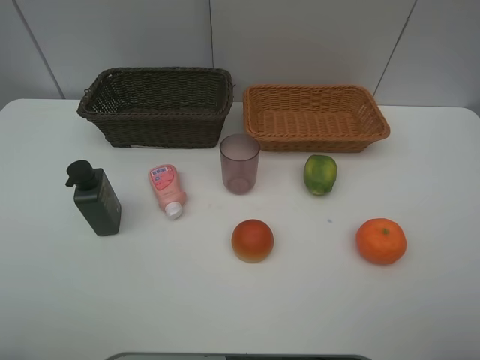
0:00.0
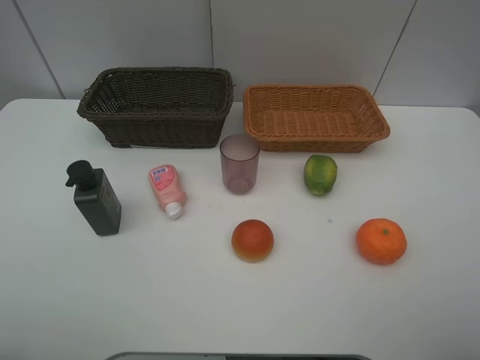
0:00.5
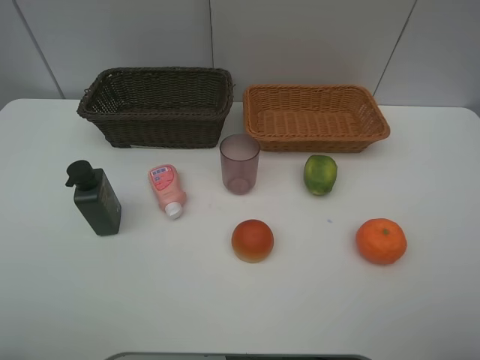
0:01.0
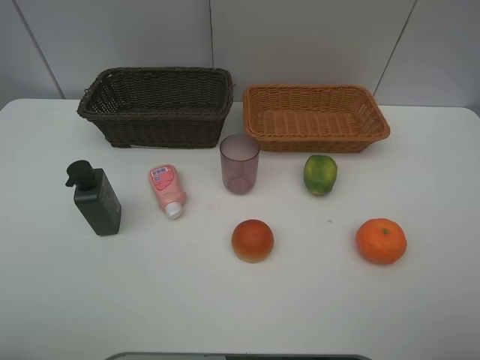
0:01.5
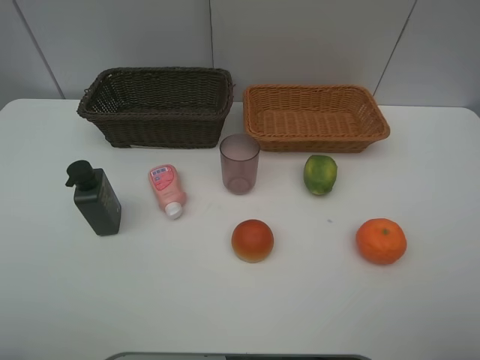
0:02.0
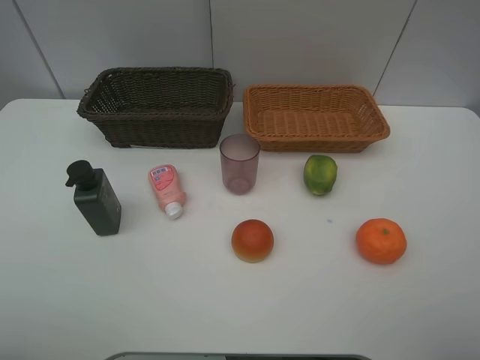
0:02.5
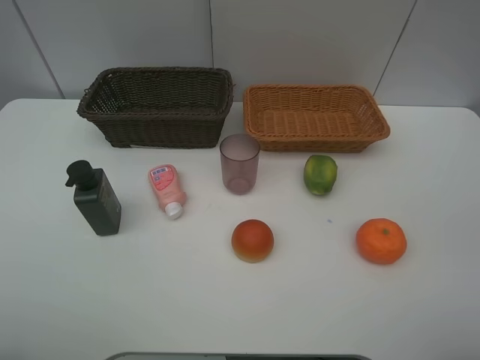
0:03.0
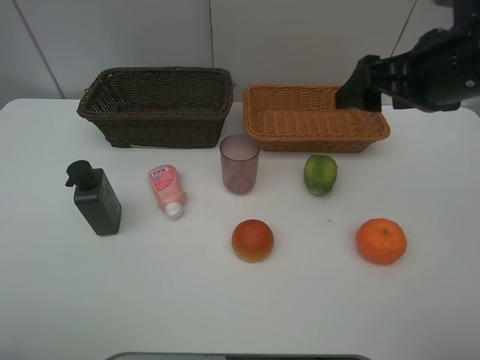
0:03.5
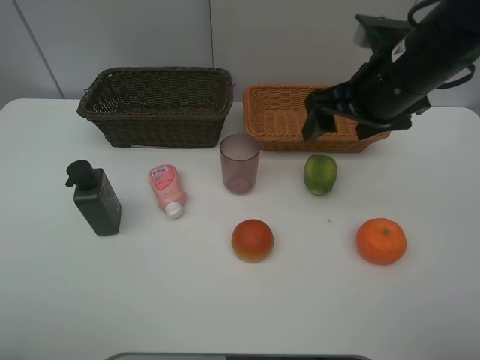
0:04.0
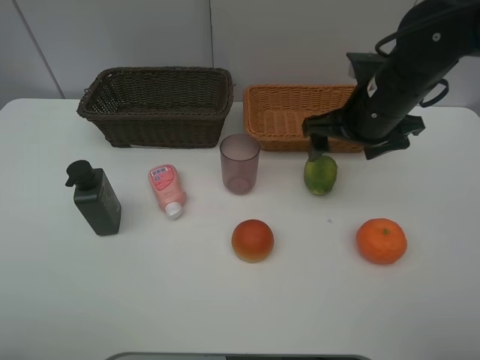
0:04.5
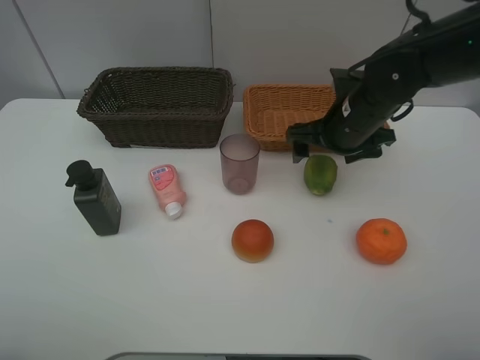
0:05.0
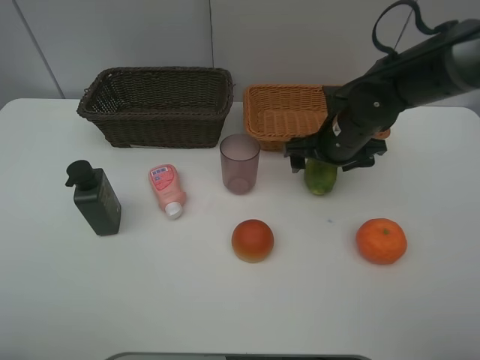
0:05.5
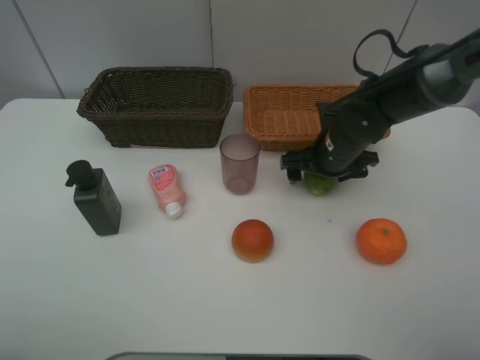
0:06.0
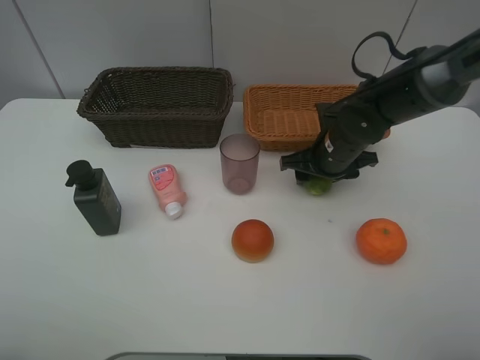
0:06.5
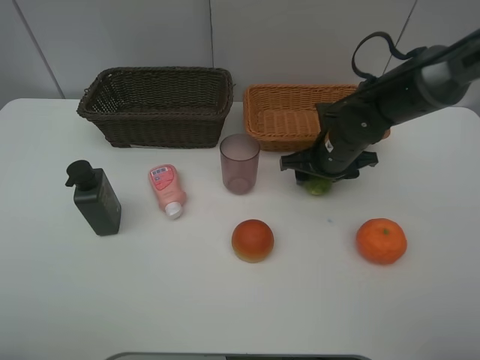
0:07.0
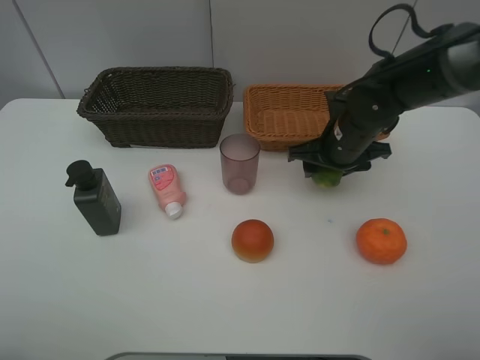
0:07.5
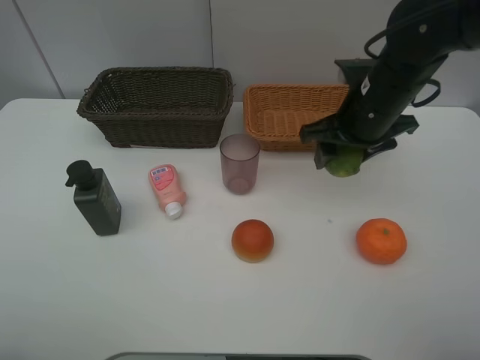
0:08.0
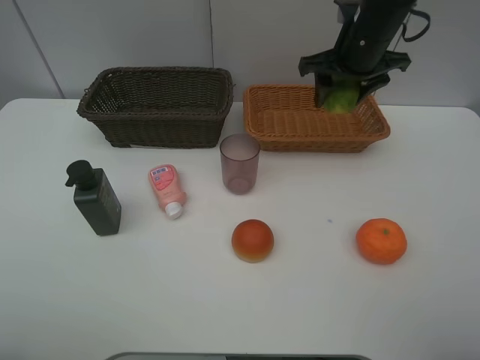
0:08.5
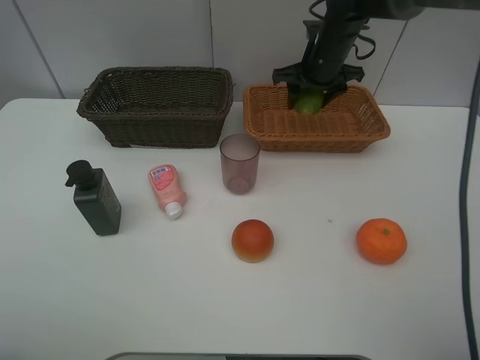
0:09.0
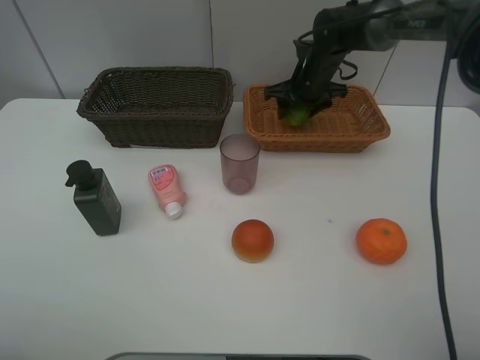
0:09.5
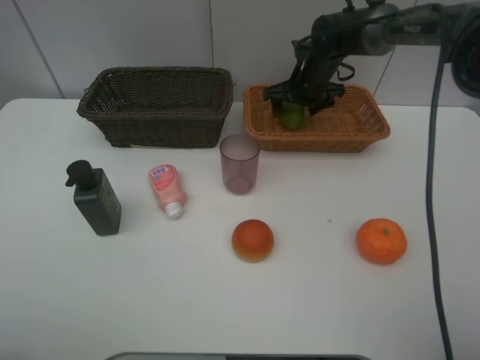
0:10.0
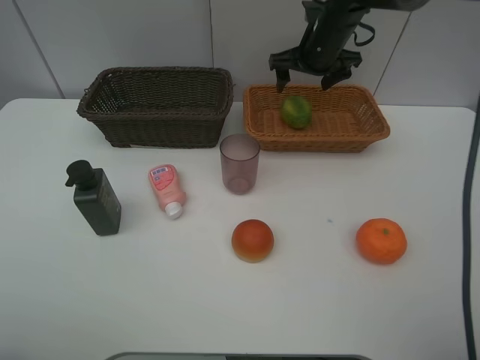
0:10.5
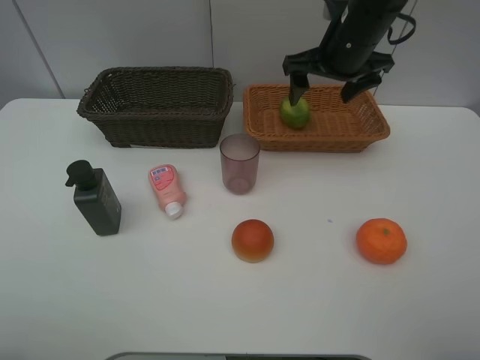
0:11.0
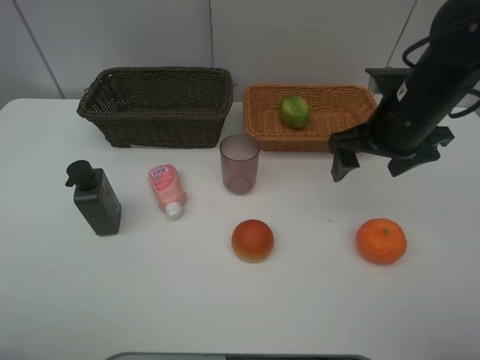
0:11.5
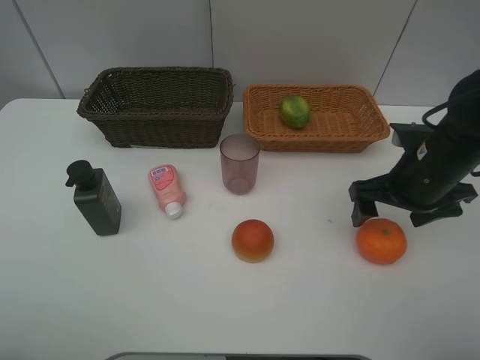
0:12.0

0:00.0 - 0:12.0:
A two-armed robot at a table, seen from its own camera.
Task of the whole recording: place multiple objects separately in different baskets.
0:00.0 - 0:02.0: Neither gripper changes place.
0:02.0 - 0:04.0: The right gripper is displaced forward and to the left by roughly 30 cm.
0:04.0 - 0:06.0: The right gripper is displaced downward and forward by approximately 15 cm.
0:06.0 - 0:08.0: The right gripper heads upward, covering some 10 cm, and closes.
0:08.0 - 0:10.0: The right gripper moves forward, approximately 20 cm, and opens up.
0:10.0 - 0:12.0: The right gripper moves backward, about 25 cm.

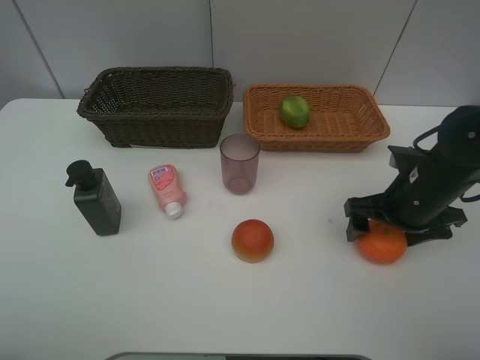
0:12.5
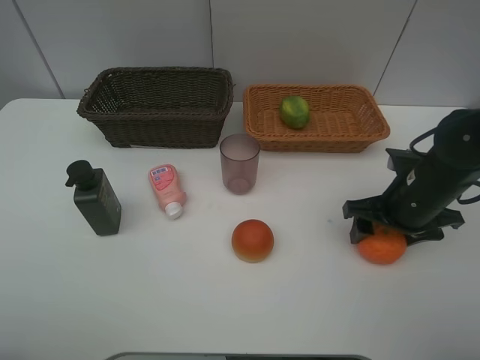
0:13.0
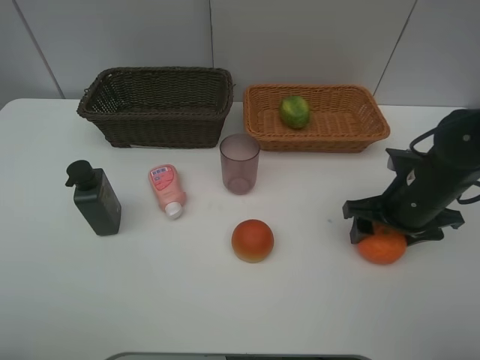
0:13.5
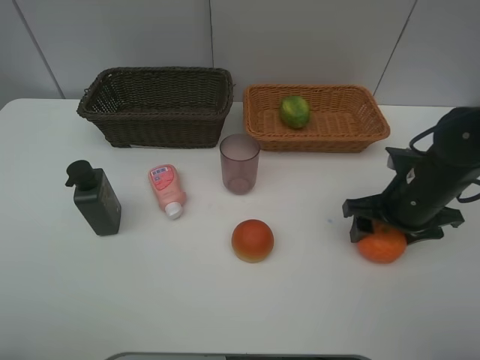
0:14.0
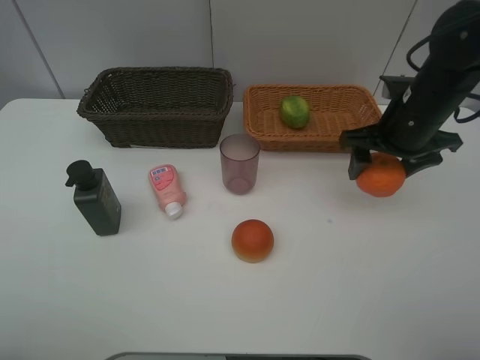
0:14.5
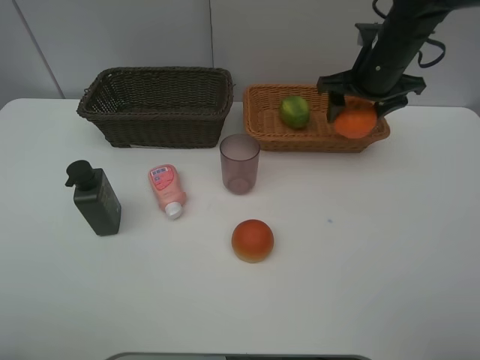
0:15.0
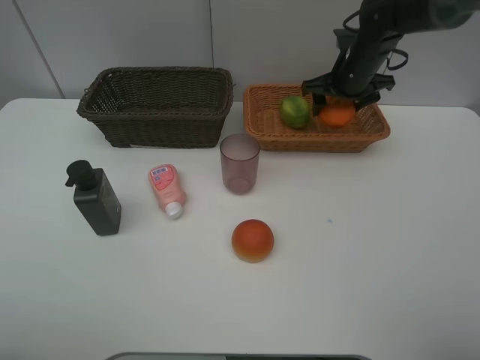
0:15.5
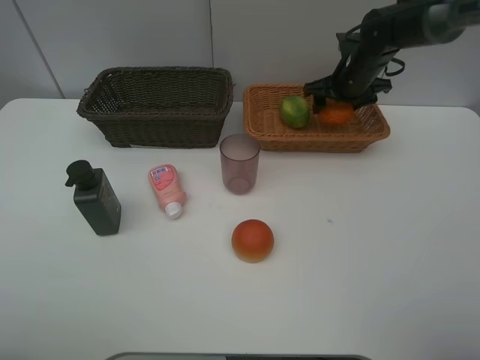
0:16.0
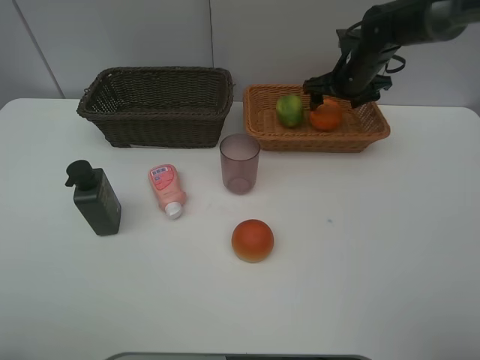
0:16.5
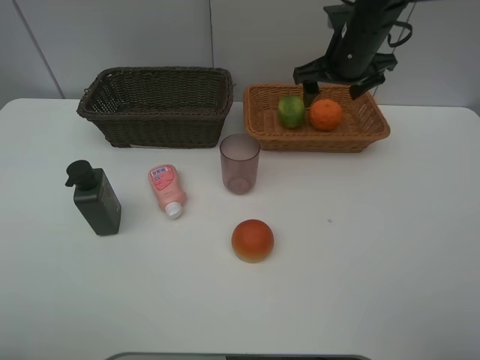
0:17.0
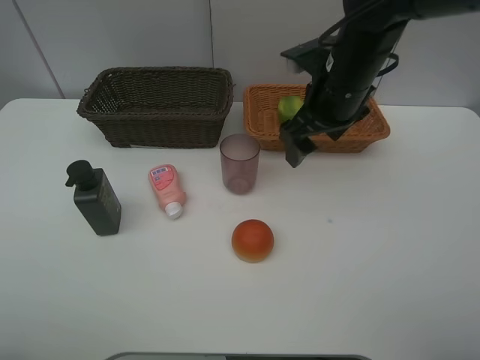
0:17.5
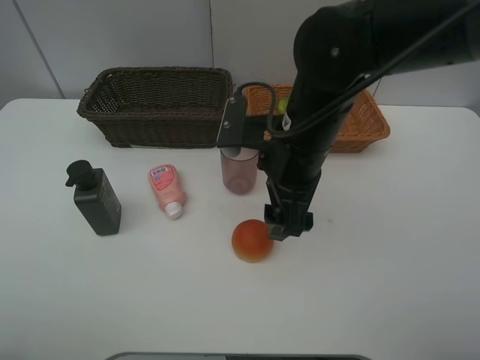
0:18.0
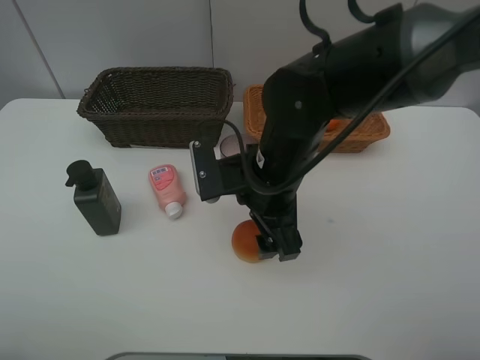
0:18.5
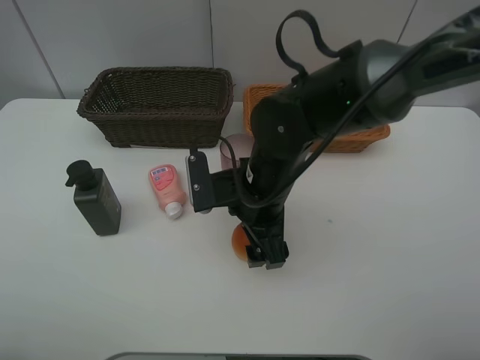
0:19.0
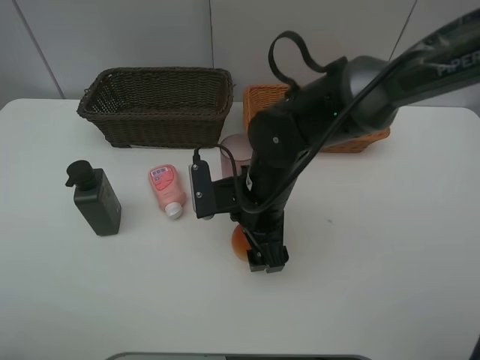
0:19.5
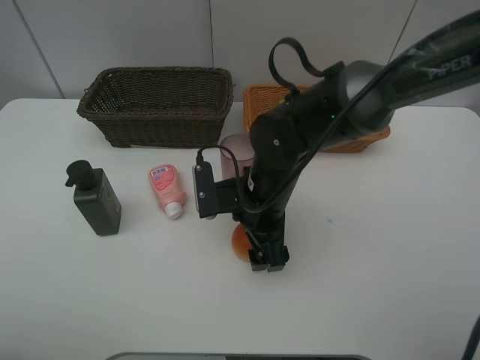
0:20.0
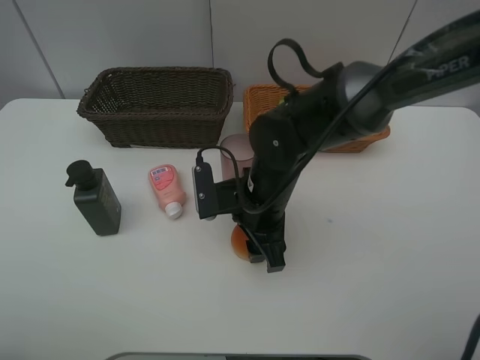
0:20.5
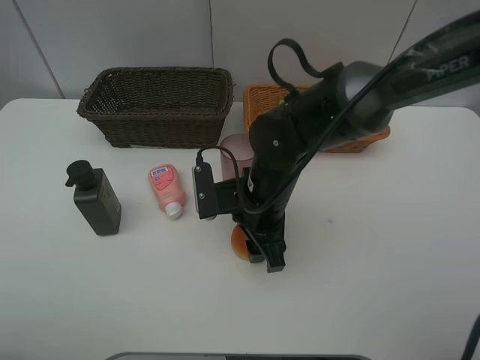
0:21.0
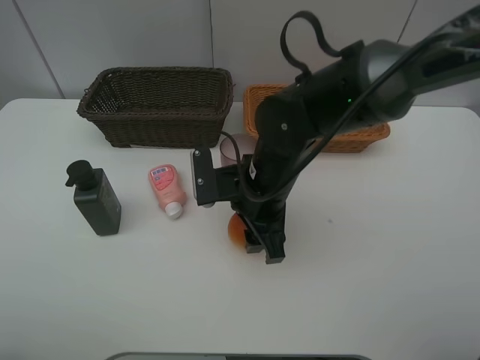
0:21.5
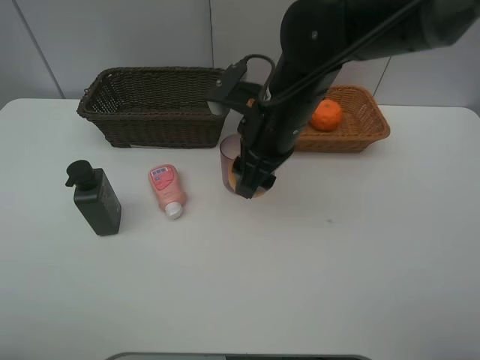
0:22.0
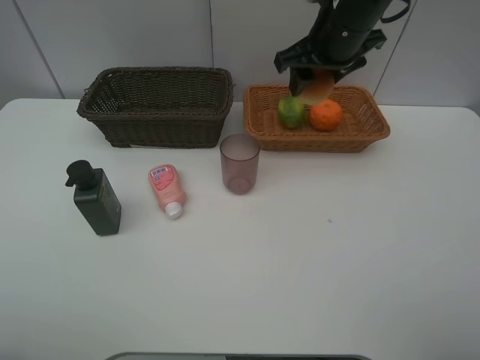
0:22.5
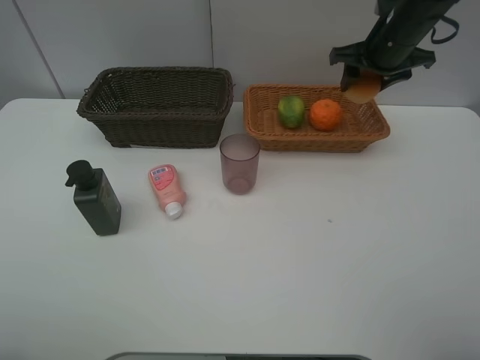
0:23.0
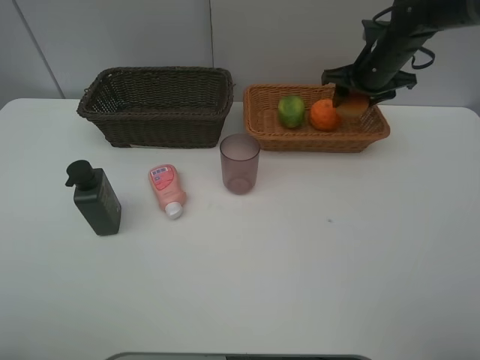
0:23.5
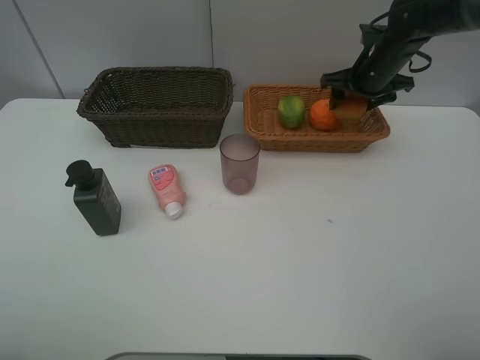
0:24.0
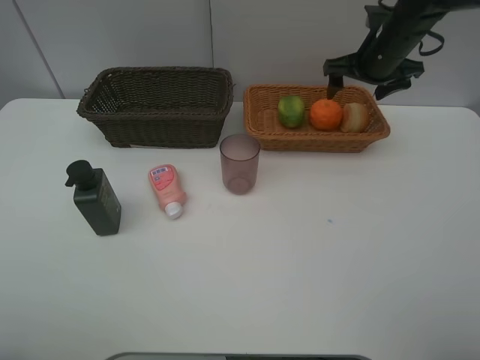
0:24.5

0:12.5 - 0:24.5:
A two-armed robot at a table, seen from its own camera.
Task of the whole recording: place multiple objects separately in different baskets.
0:12.5 - 0:14.5: The right gripper is displaced upward and forward by roughly 10 cm, and closes.
0:14.5 - 0:16.5: The right gripper goes about 15 cm forward, and opens.
0:16.5 - 0:18.5: The right gripper heads backward and to the left, covering approximately 30 cm.
0:18.5 - 0:20.5: The right gripper travels downward by approximately 5 cm, and closes up.
0:20.5 - 0:22.5: The right gripper is displaced upward, forward and to the right by approximately 25 cm.
0:22.5 - 0:24.5: The right gripper travels to the right and forward by about 10 cm, and opens up.

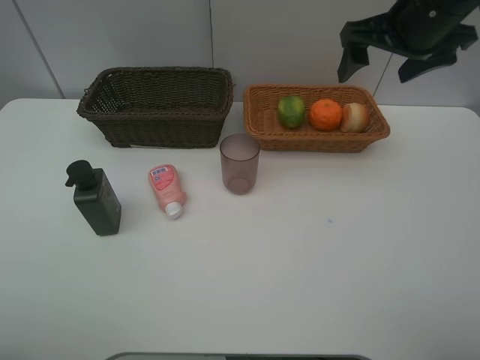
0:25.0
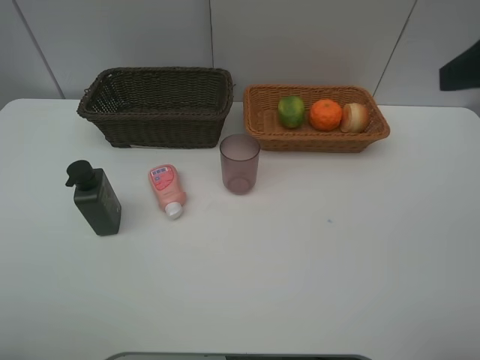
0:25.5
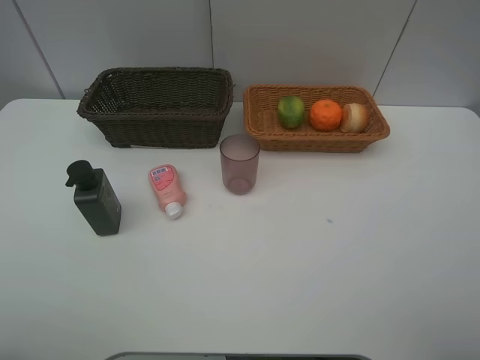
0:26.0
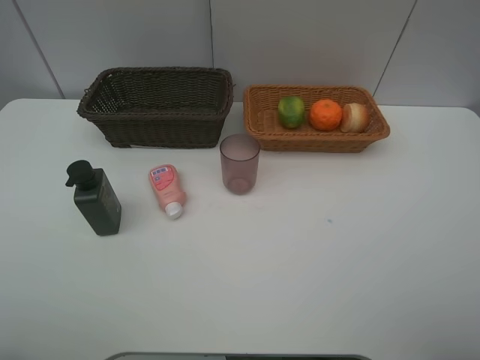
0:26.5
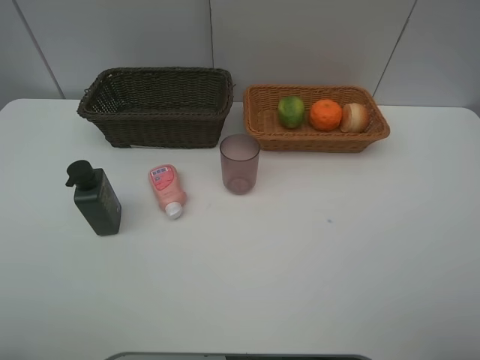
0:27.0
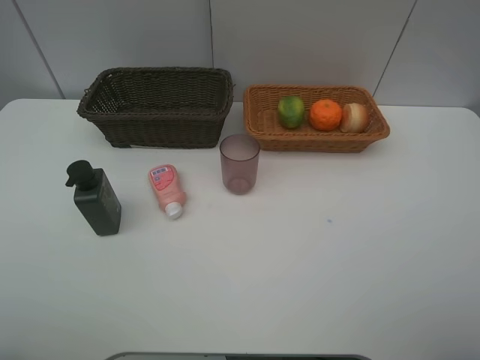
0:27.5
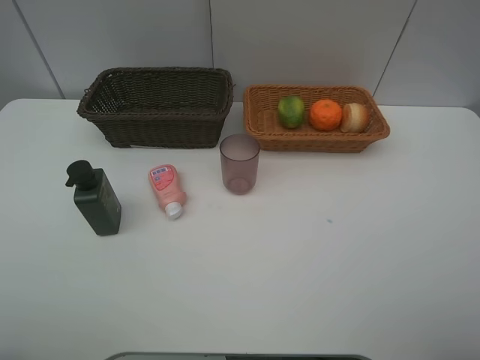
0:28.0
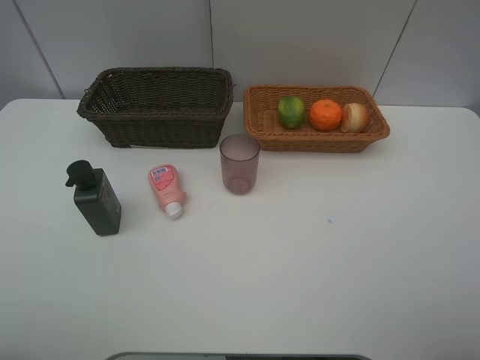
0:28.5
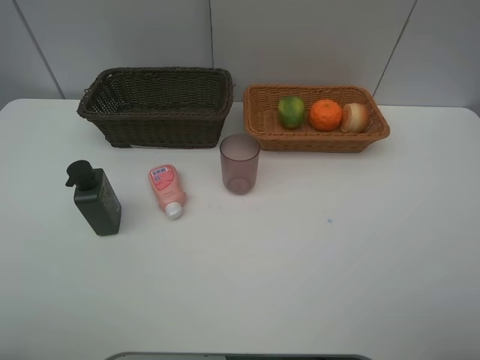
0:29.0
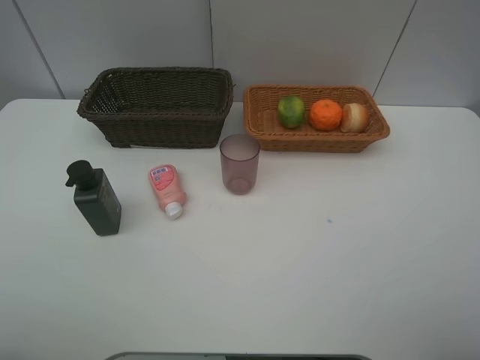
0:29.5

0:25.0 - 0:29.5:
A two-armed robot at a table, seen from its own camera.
Task of the whole recording: place multiple objects separately in different baskets.
0:25.0 - 0:27.0: The right gripper goes about 30 cm backward.
0:27.0 - 0:29.5: Neither gripper changes place.
